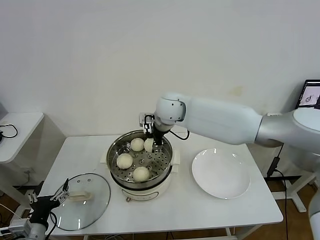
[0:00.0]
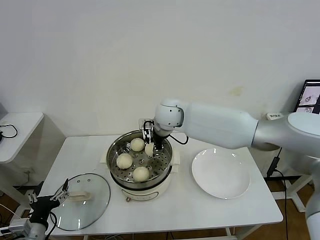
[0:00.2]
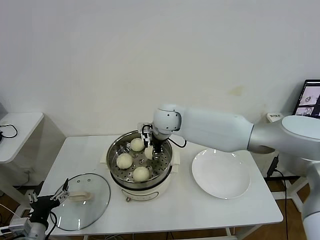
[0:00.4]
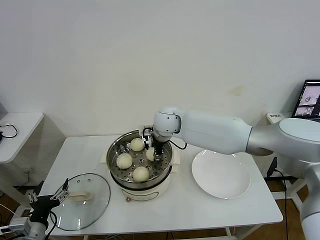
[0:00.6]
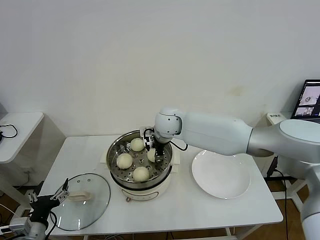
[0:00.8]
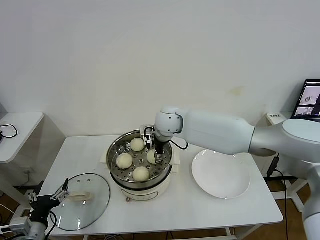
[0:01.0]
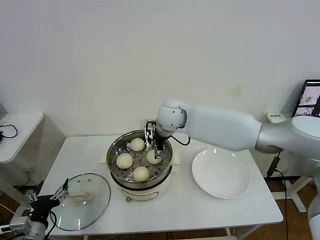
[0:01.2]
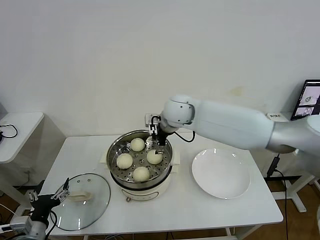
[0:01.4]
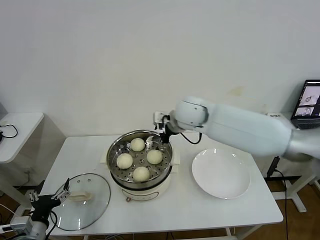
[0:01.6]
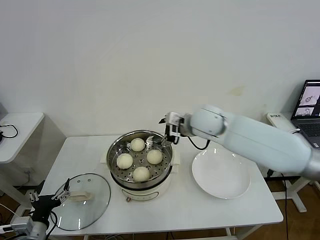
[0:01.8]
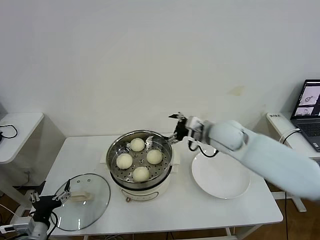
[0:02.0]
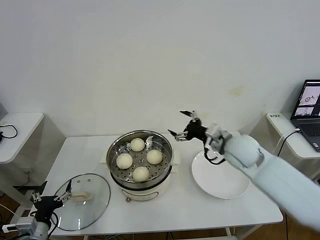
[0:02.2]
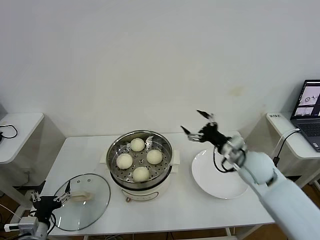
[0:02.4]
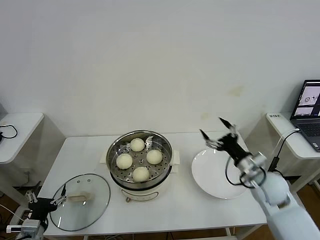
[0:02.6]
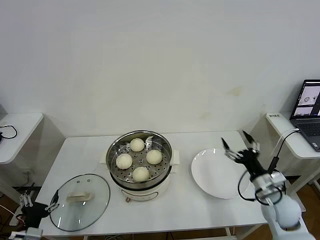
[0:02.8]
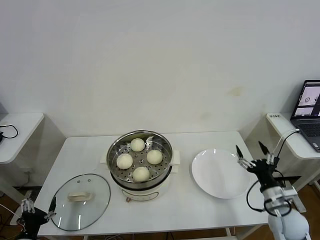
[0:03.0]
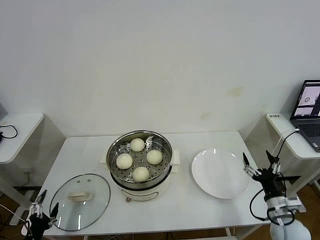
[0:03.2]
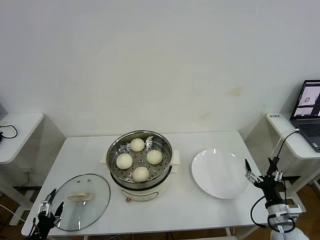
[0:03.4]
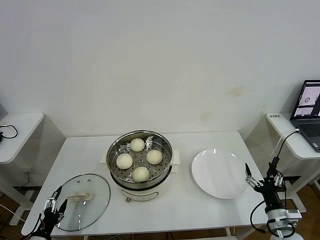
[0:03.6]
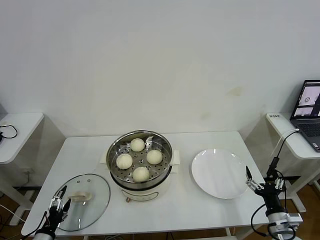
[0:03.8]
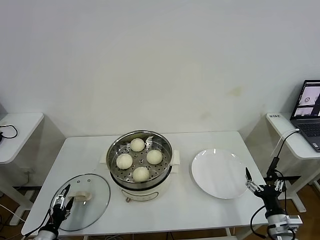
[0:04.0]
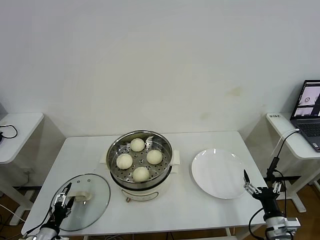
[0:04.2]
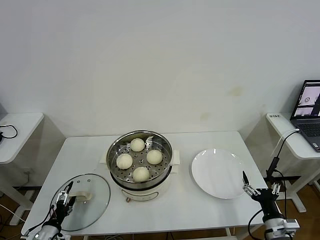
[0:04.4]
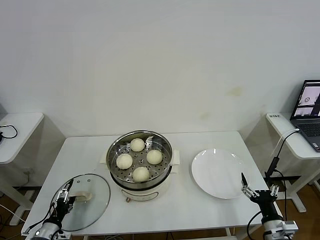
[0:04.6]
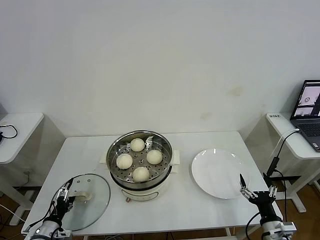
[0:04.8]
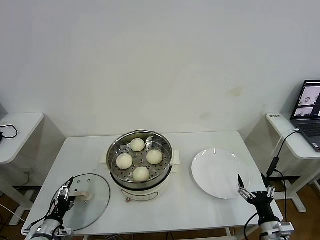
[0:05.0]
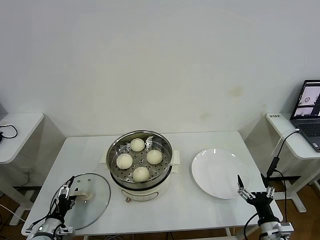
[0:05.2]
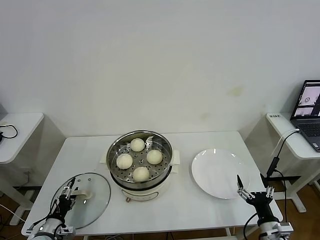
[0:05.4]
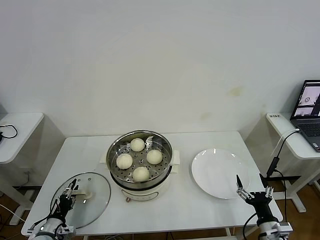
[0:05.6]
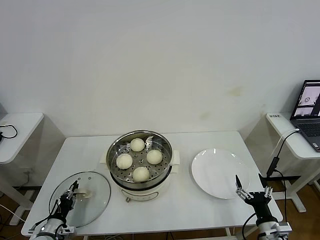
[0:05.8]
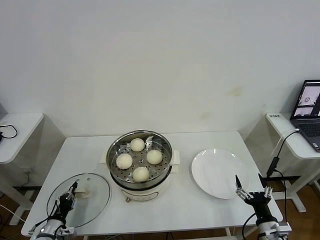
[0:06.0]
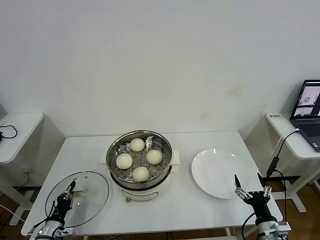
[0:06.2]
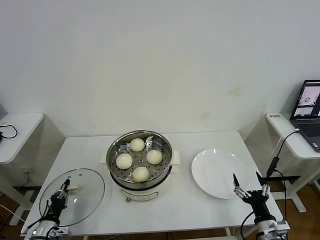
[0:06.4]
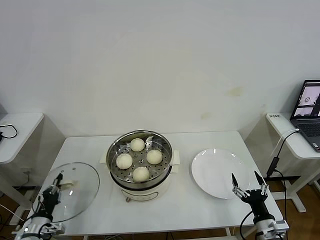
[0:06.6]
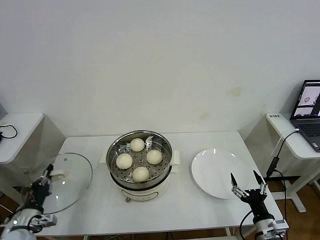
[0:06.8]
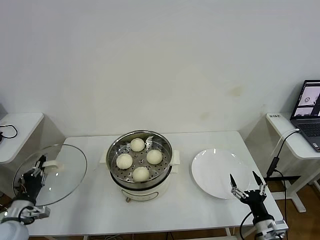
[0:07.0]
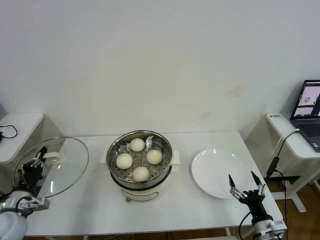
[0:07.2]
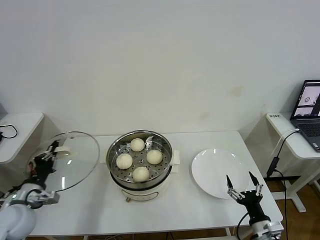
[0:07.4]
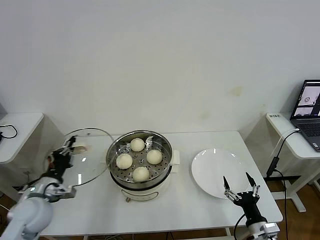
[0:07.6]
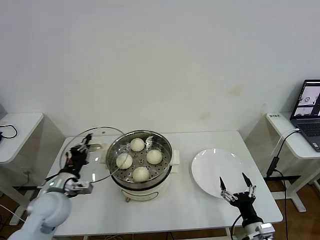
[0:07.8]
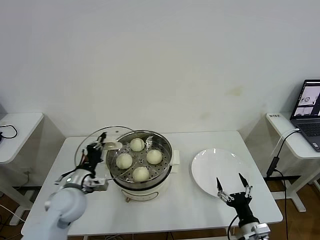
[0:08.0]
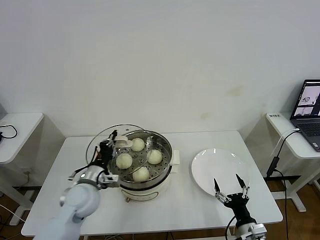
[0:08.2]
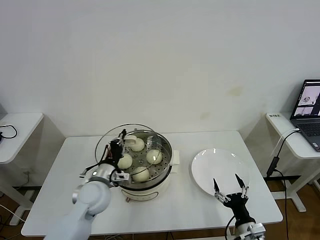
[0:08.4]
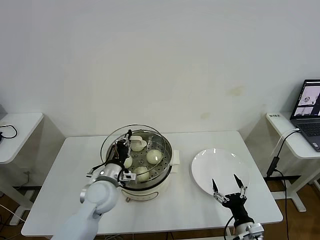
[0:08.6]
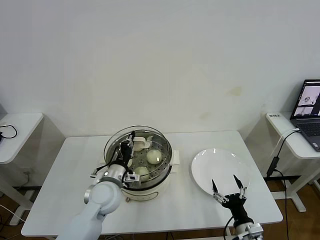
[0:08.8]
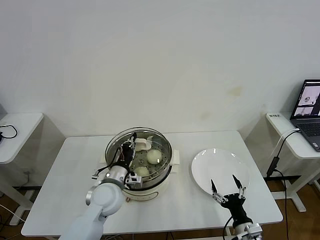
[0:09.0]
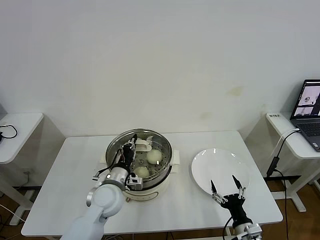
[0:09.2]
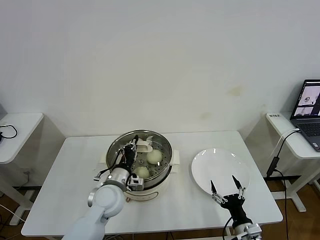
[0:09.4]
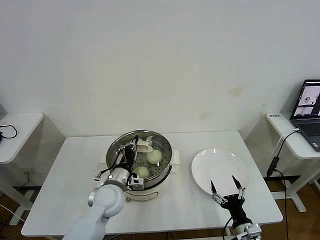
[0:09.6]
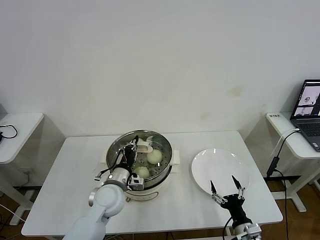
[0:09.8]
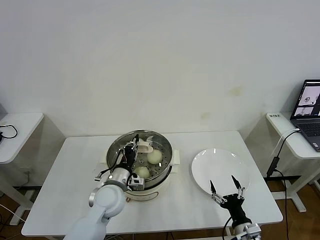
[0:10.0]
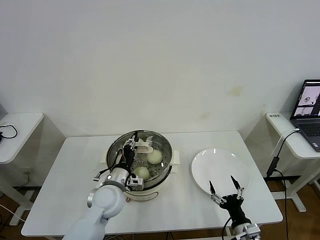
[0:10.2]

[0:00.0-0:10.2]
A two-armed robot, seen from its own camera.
Task of the whole recording: take steamed baozi put them in steamer then cover it.
Step, 0:01.4 to 0:06.0: Grasp the pot lid with left gripper.
0:00.0 to 0:01.4: The right gripper opens.
0:01.4 to 0:03.0: The right gripper moves to the right, backward and downward, about 50 cm. The left gripper goes roughly 5 cm downward.
0:03.0 to 0:04.4: The left gripper shifts roughly 10 cm downward and forward. The right gripper travels backward and downward by roughly 10 cm.
0:04.4 to 0:05.8: The left gripper closes.
0:05.8 to 0:07.2: The left gripper goes roughly 15 cm upward.
0:07.2 to 0:08.8: The right gripper ends up some 5 cm from where it was. Meanwhile the left gripper heads to the right, covering approximately 25 cm.
0:08.8 to 0:10.2: The left gripper opens up.

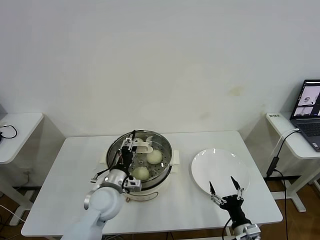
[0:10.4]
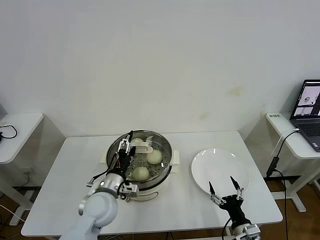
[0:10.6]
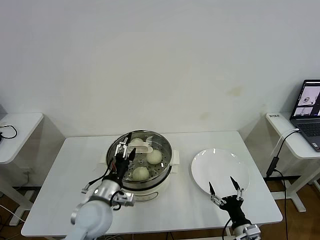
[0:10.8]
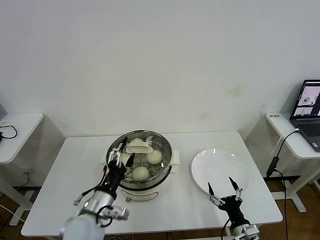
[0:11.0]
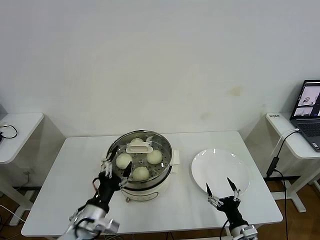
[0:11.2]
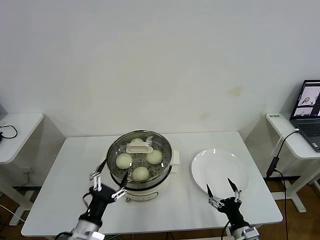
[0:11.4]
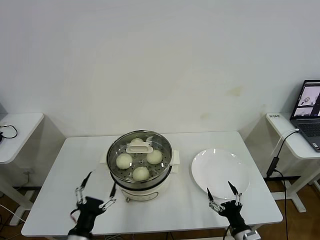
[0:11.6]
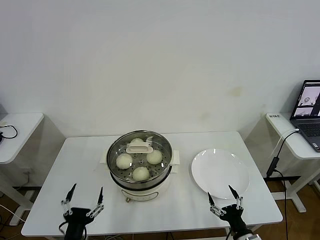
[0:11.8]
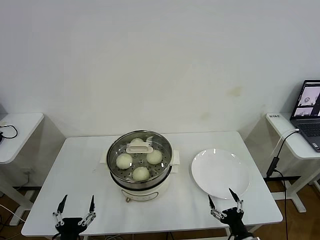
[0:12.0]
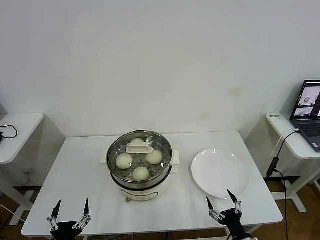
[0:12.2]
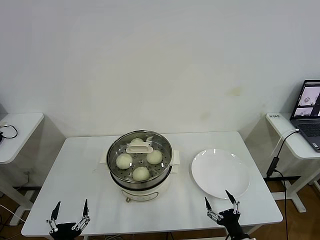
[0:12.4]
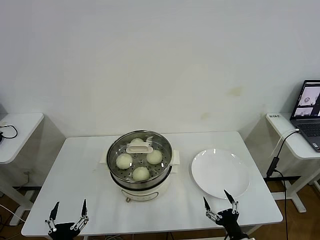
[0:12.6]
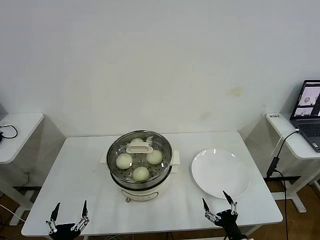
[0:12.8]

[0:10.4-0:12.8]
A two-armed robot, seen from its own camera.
Task of the whole recording: take steamed baozi put them in steamer then cover it.
0:10.4 to 0:11.6: The left gripper heads backward, covering approximately 20 cm, and opens.
0:11.6 to 0:12.8: The left gripper heads backward and downward, covering roughly 10 cm.
